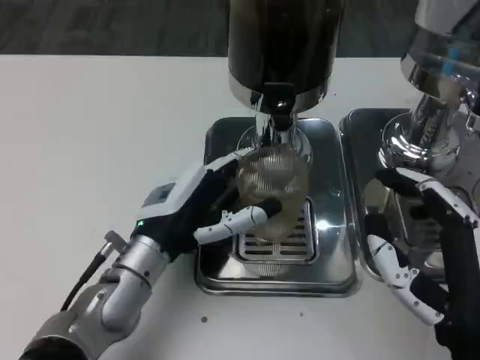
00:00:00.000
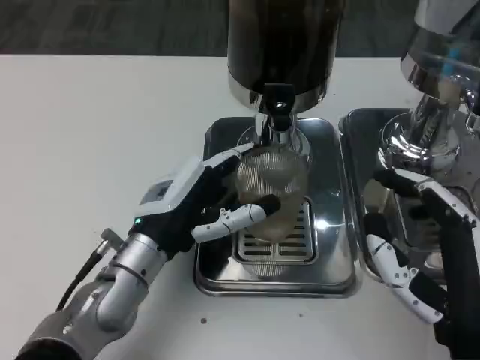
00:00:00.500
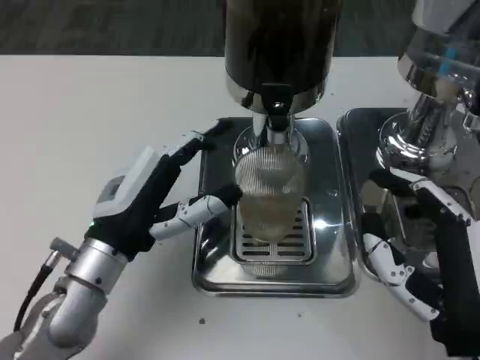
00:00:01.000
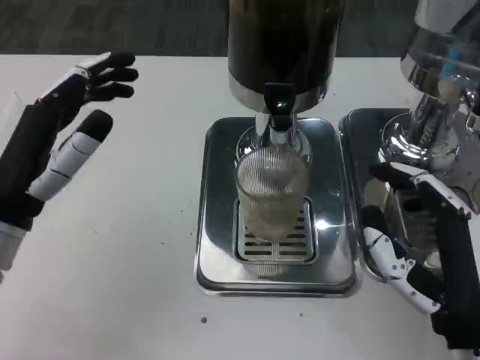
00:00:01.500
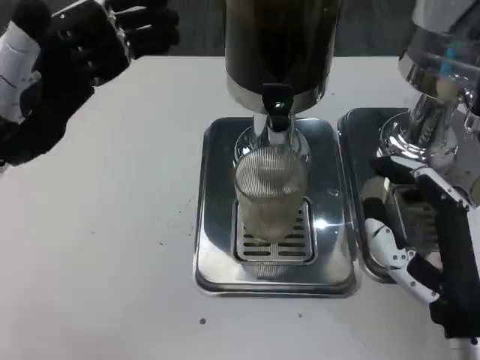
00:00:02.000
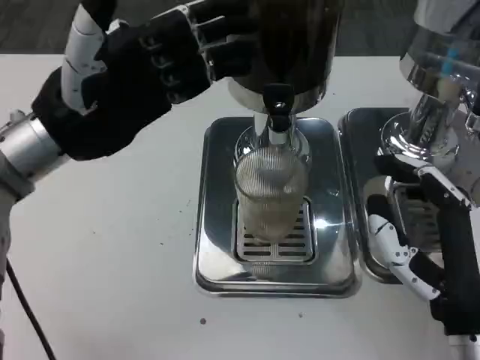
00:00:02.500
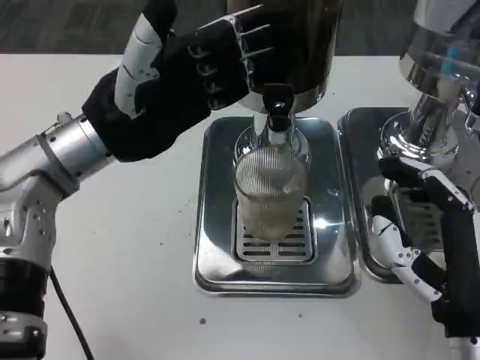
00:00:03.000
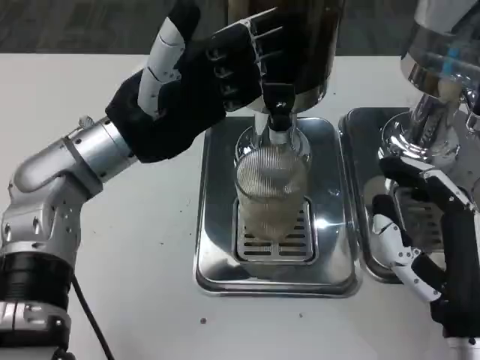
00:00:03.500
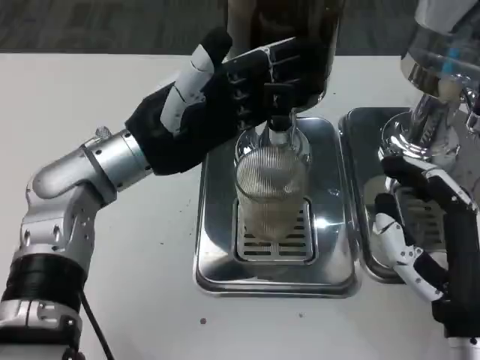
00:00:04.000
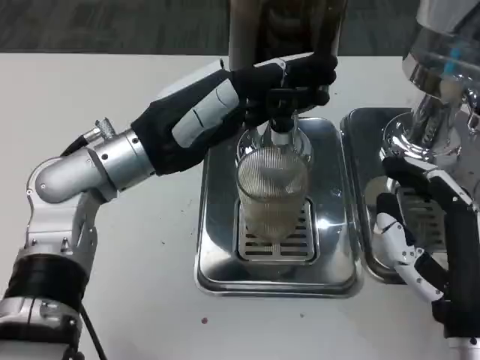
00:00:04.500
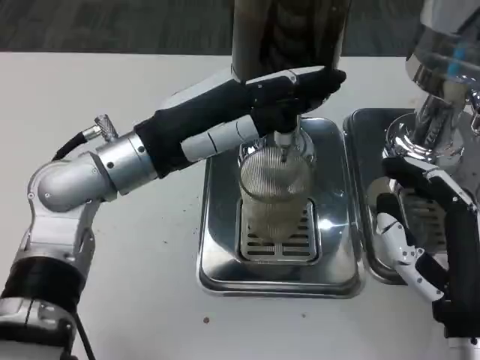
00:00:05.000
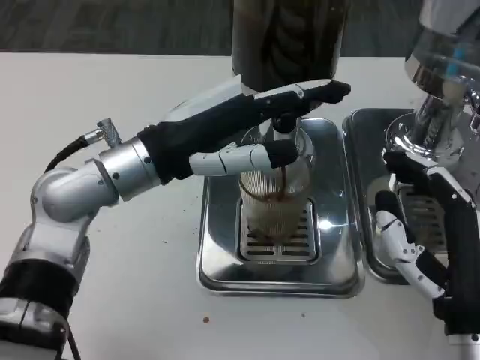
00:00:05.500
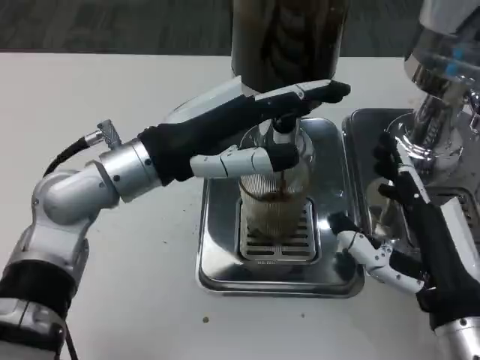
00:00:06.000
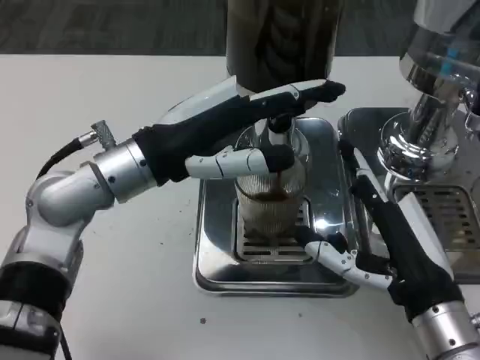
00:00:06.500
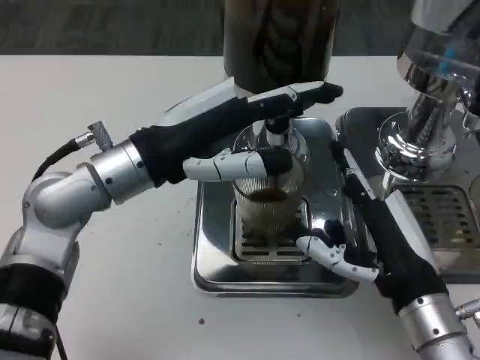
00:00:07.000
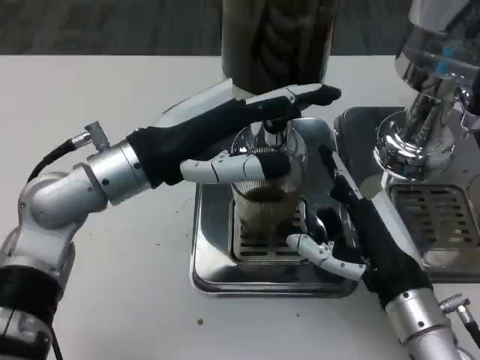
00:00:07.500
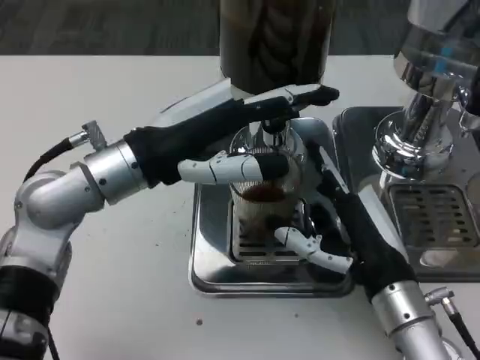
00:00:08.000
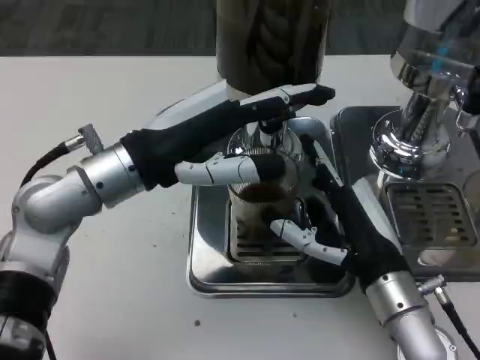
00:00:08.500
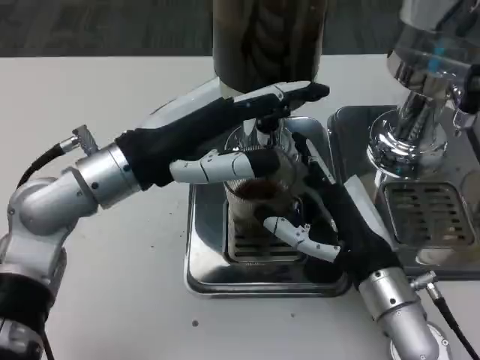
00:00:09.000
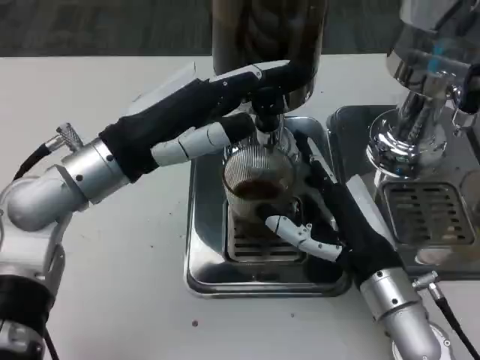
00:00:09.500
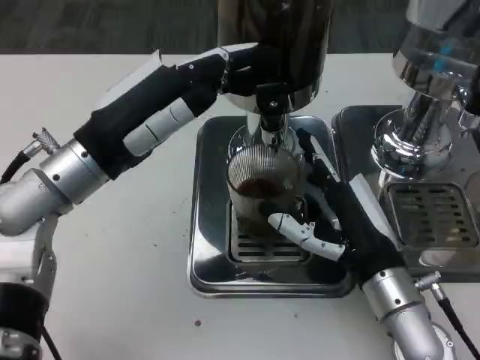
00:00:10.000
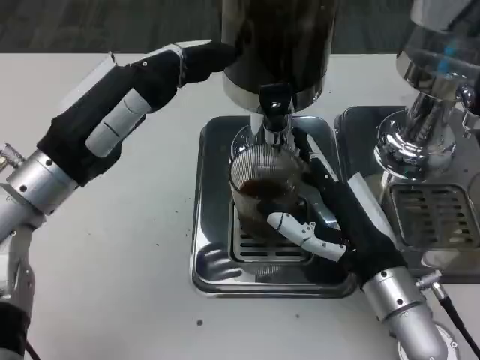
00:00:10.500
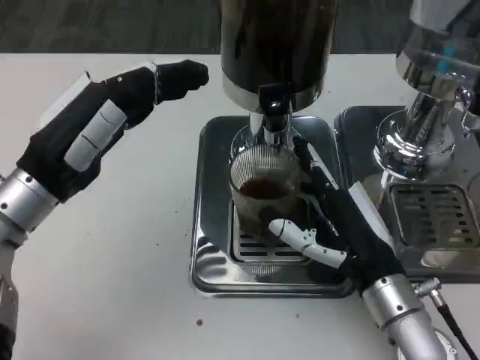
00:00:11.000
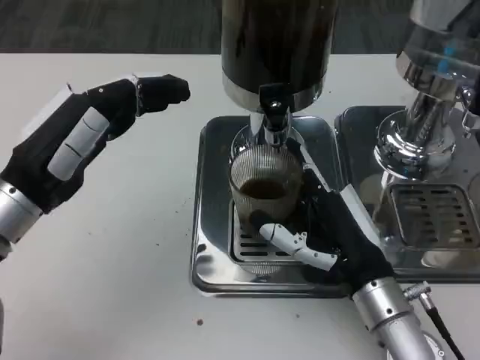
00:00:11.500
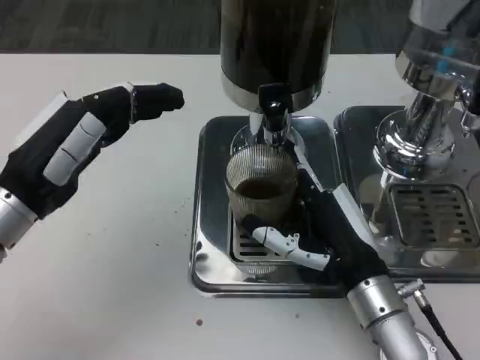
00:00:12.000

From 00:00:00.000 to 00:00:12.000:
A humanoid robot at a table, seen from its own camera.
Task of the whole recording: Grasp the cup under the faucet to collect the drink, then remove the cup.
From 00:00:00.000 to 00:00:02.000: The left hand travels upward and to the left by some 20 cm.
From 00:00:02.000 to 00:00:04.000: The left hand goes about 10 cm to the right and forward.
From 00:00:06.000 to 00:00:08.000: The right hand ends up roughly 5 cm from where it was.
From 00:00:10.000 to 00:00:12.000: The left hand travels to the left by about 5 cm.

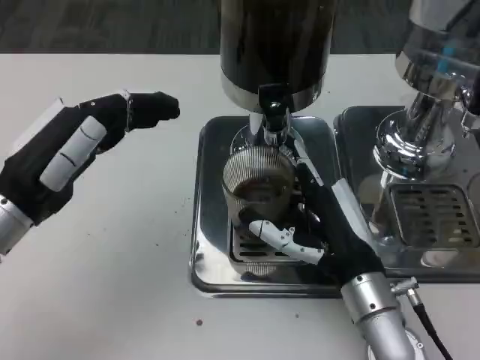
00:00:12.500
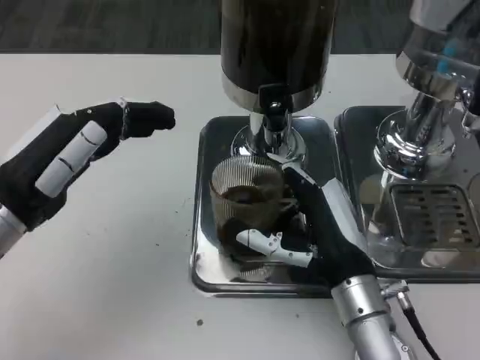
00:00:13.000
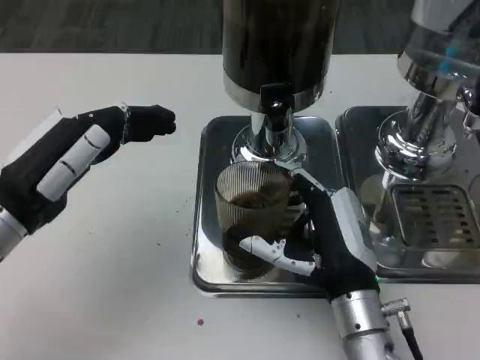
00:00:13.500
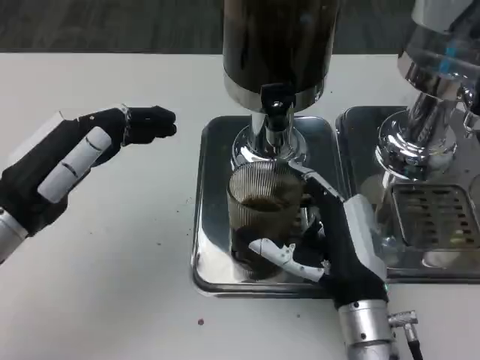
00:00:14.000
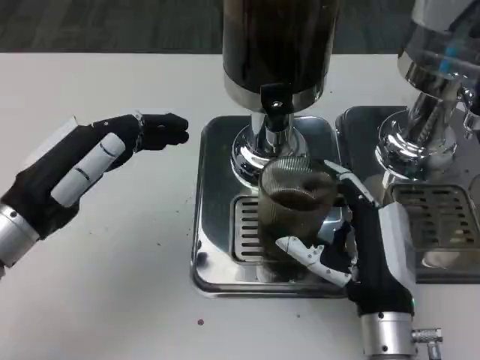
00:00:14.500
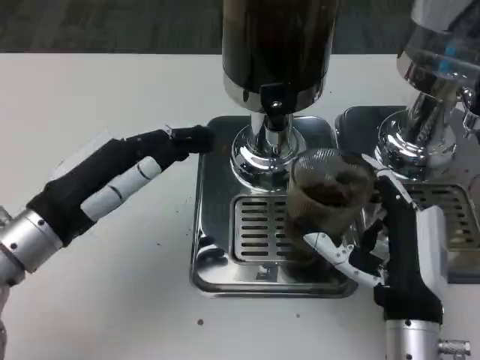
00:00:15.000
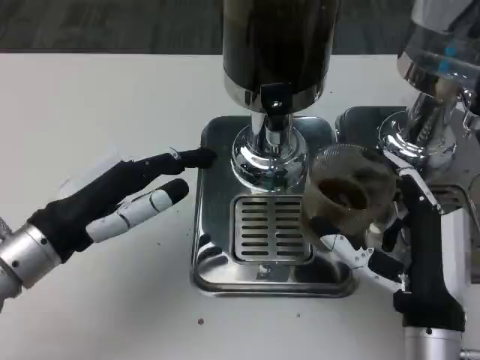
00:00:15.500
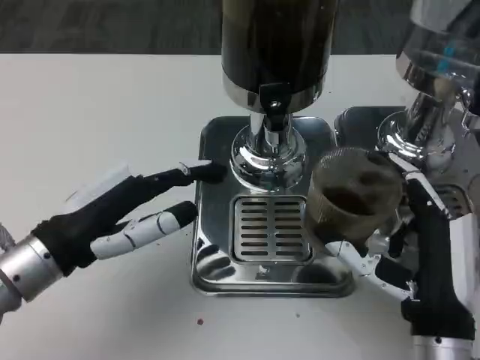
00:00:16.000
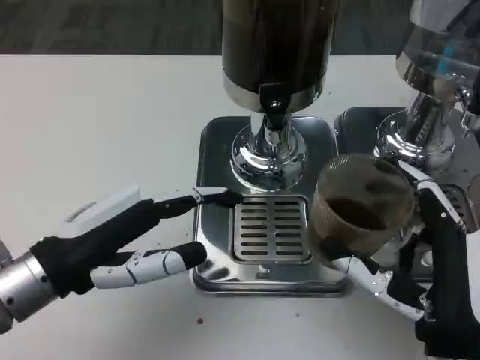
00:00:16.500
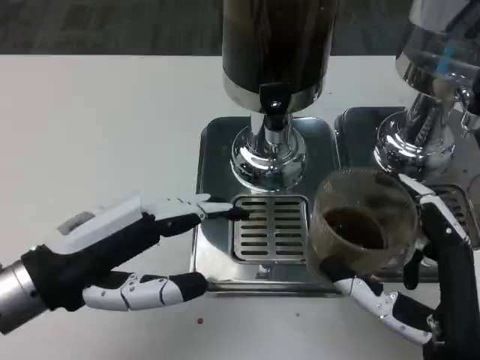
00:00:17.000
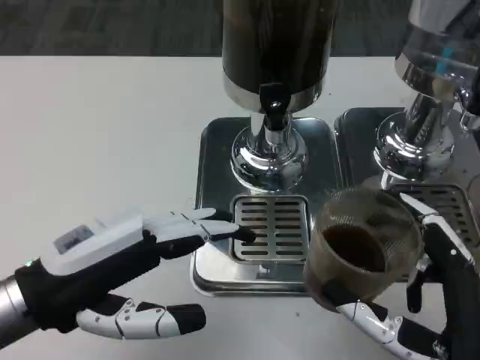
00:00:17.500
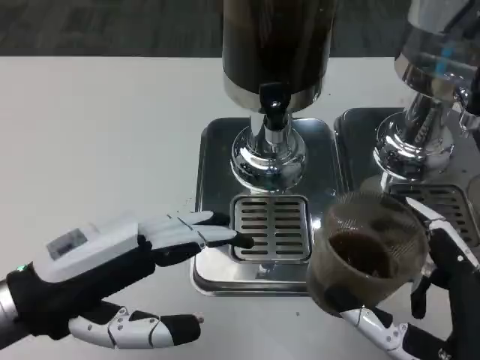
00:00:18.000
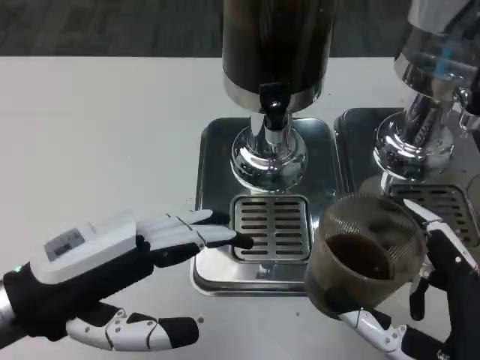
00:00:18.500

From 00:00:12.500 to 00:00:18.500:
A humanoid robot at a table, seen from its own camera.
Task of the whole recording: Grasp the cup under the faucet to collect the drink, then remove the cup.
From 00:00:14.500 to 00:00:16.500: The right hand moves backward, roughly 5 cm.
From 00:00:16.500 to 00:00:18.500: The right hand travels backward by about 5 cm.

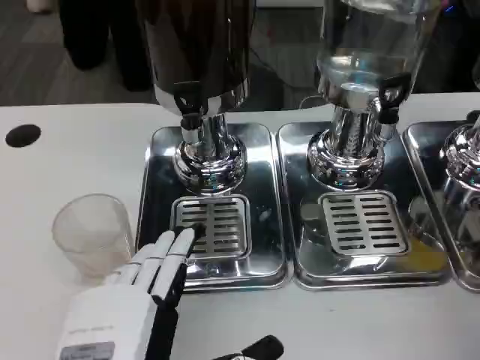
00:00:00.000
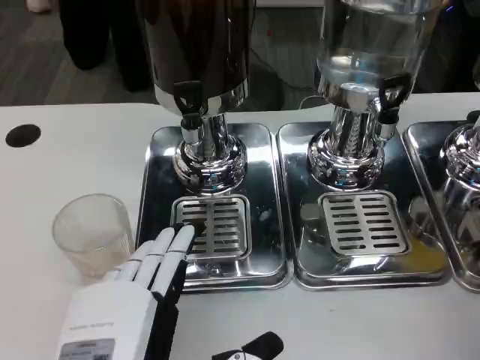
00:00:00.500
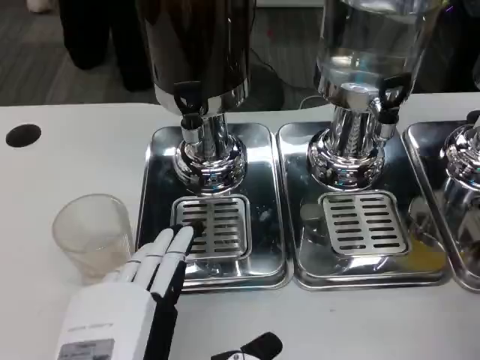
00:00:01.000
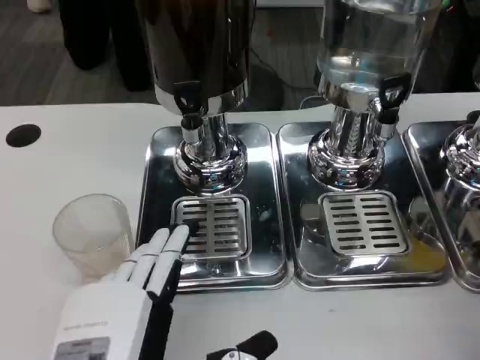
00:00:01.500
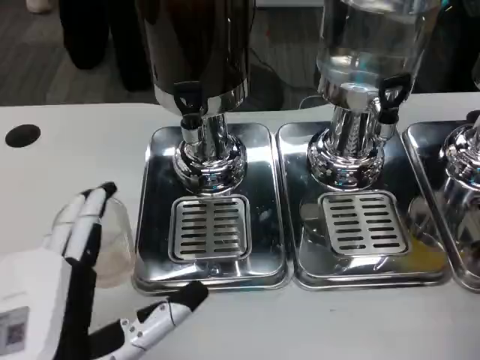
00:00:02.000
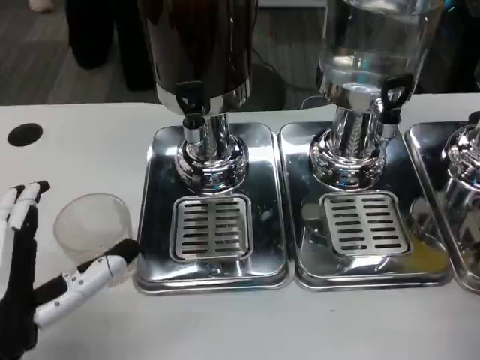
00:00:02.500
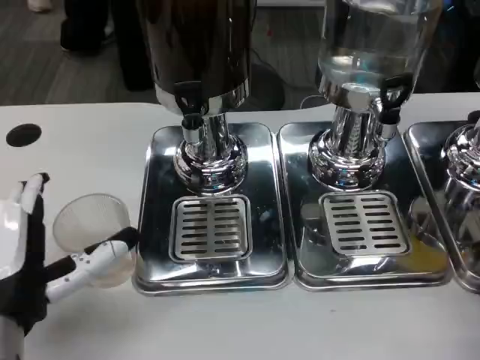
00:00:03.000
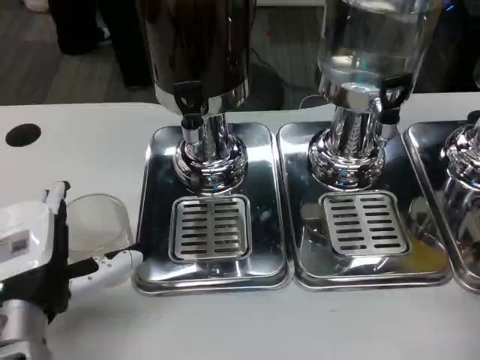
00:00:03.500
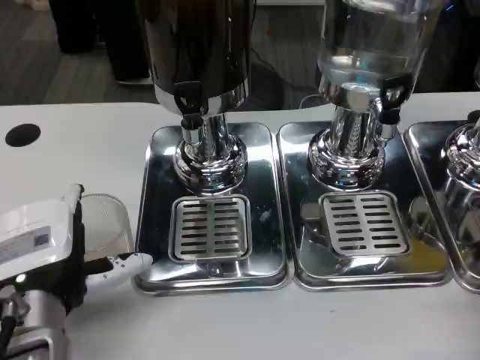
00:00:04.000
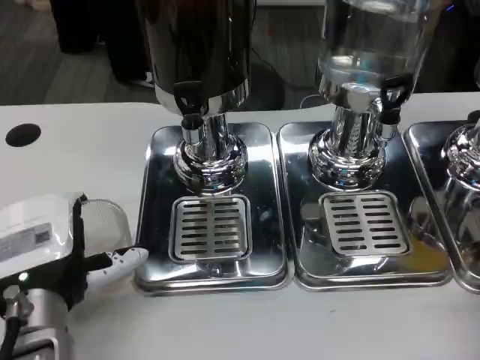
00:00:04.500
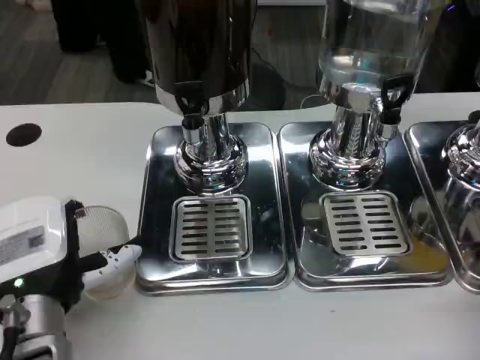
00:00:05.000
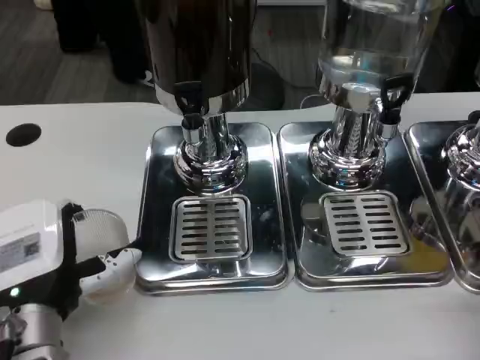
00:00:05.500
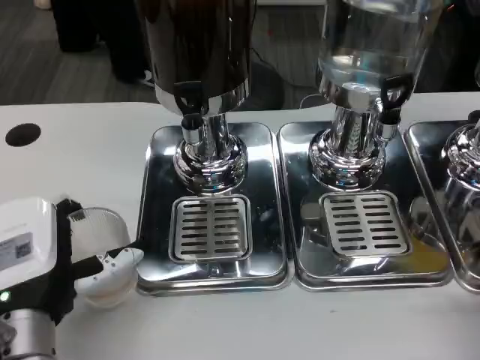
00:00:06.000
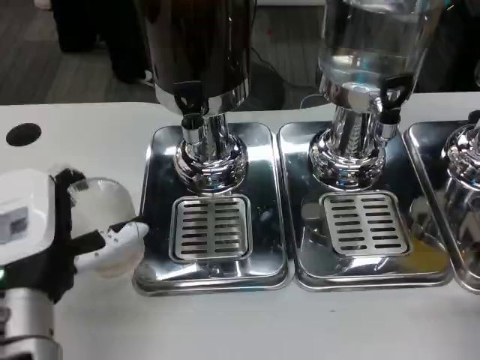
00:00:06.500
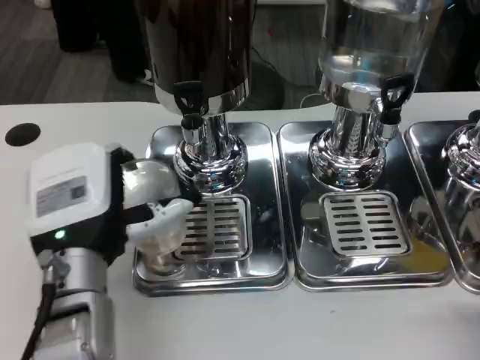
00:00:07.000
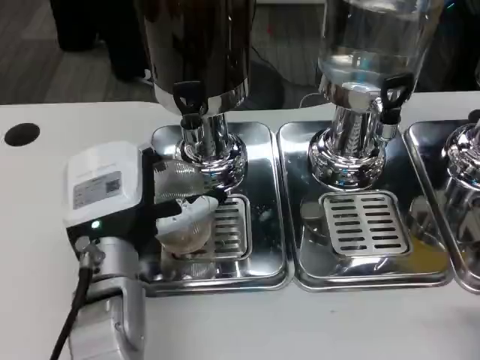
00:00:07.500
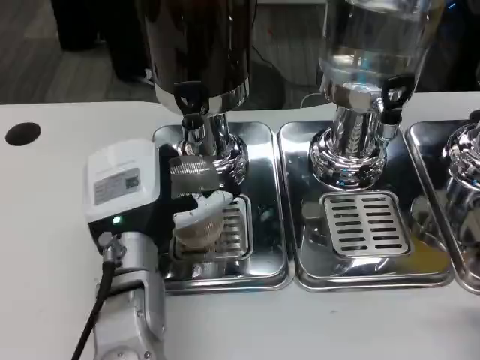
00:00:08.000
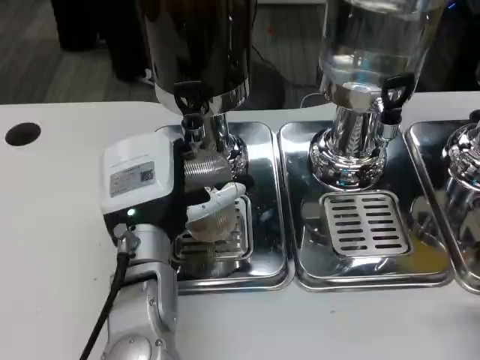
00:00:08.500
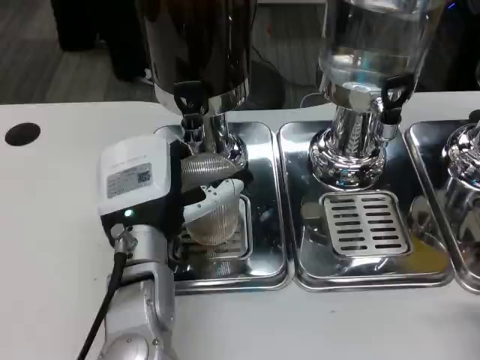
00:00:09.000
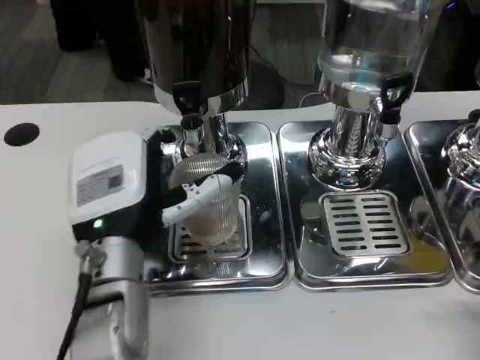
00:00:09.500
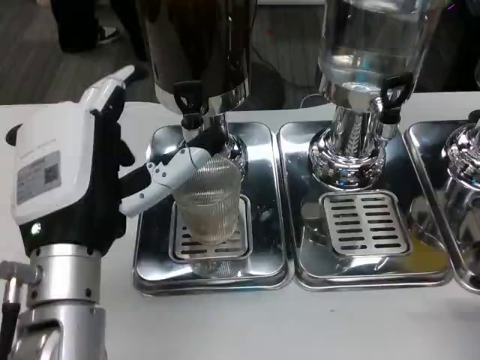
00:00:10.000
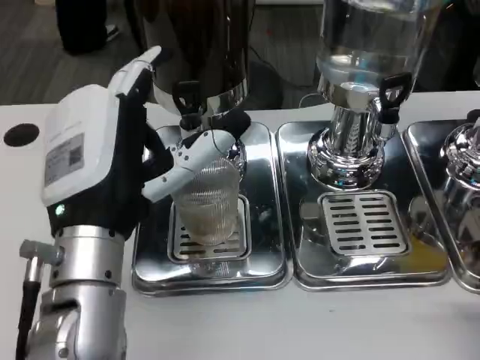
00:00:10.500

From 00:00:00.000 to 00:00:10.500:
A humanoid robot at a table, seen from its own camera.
Task of the whole recording: Grasp the cup under the faucet to collect the drink, then remove the cup.
From 00:00:00.000 to 00:00:02.000: The hands stay close to where they were, moving slightly.
From 00:00:02.000 to 00:00:04.000: The left hand shifts roughly 10 cm forward.
From 00:00:04.000 to 00:00:06.500: There are only small adjustments of the hands.
From 00:00:06.500 to 00:00:08.500: The left hand travels forward and to the right by about 10 cm.
From 00:00:08.500 to 00:00:10.500: The left hand moves upward and backward, about 10 cm.